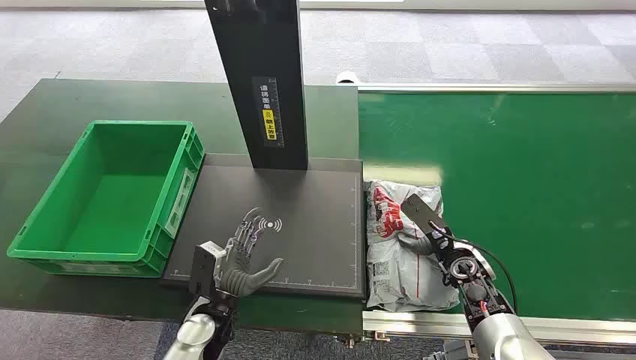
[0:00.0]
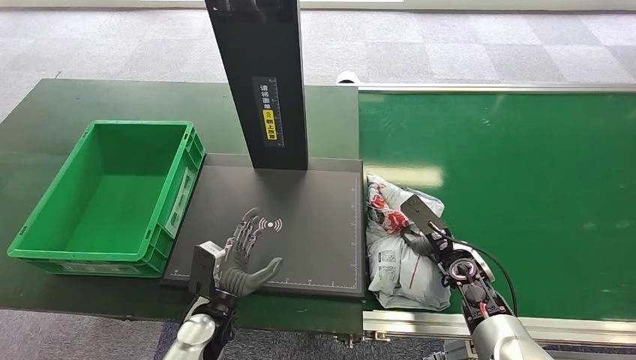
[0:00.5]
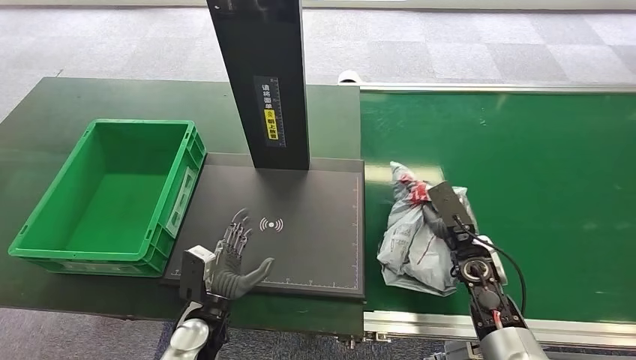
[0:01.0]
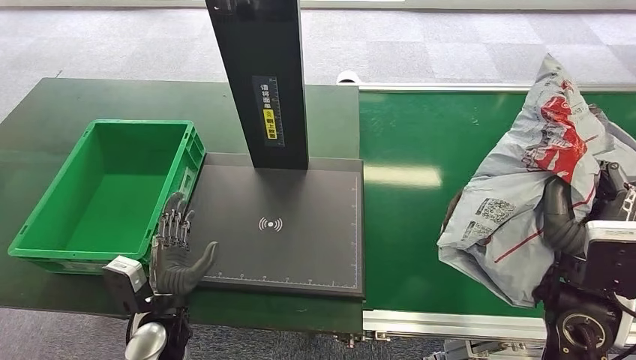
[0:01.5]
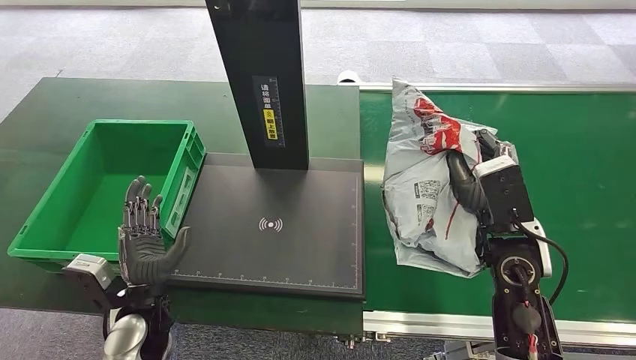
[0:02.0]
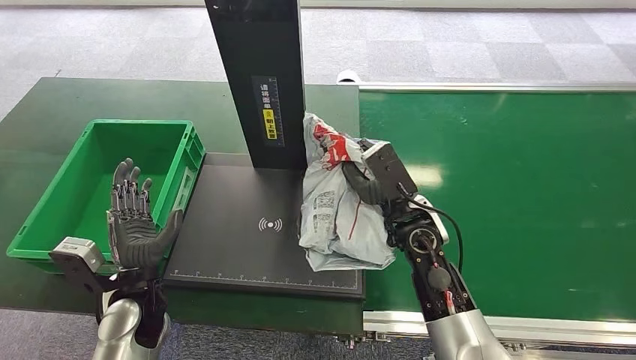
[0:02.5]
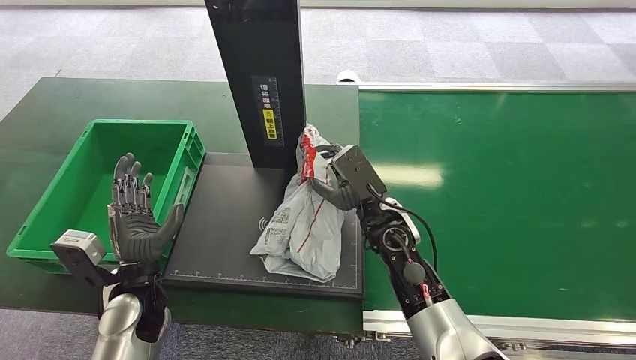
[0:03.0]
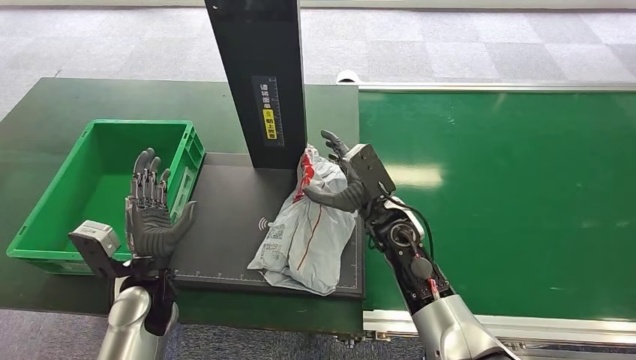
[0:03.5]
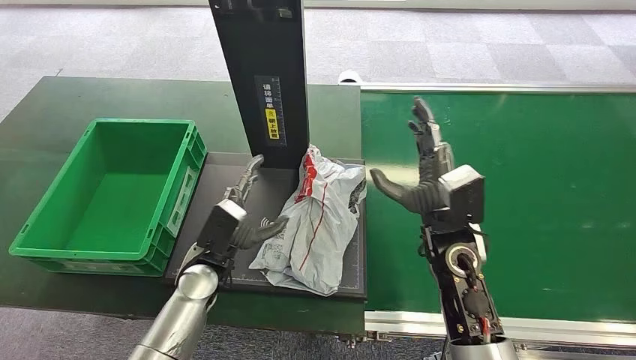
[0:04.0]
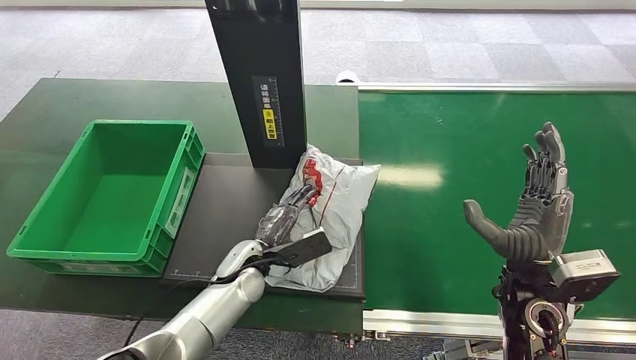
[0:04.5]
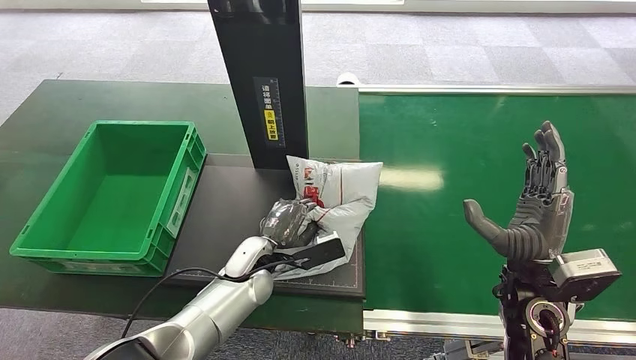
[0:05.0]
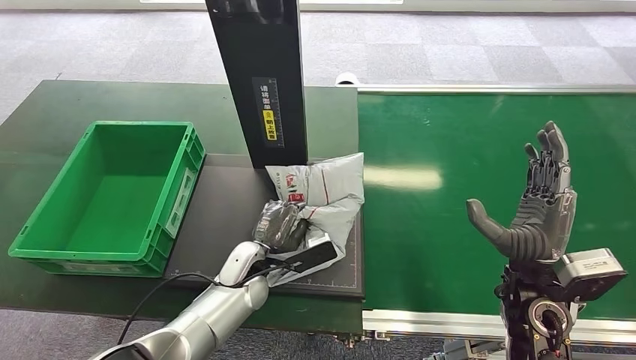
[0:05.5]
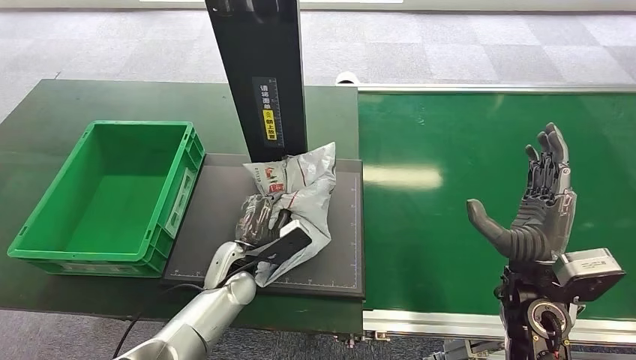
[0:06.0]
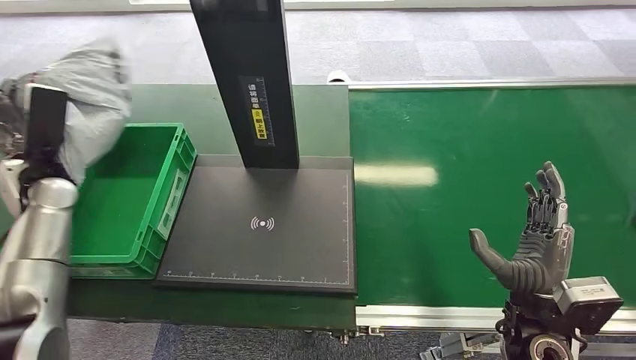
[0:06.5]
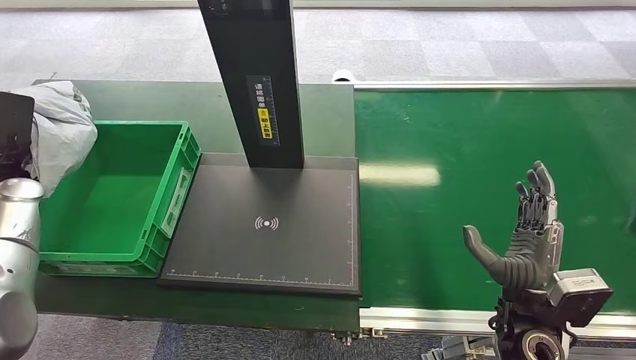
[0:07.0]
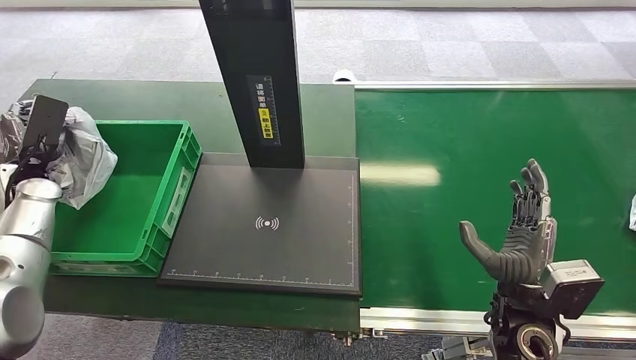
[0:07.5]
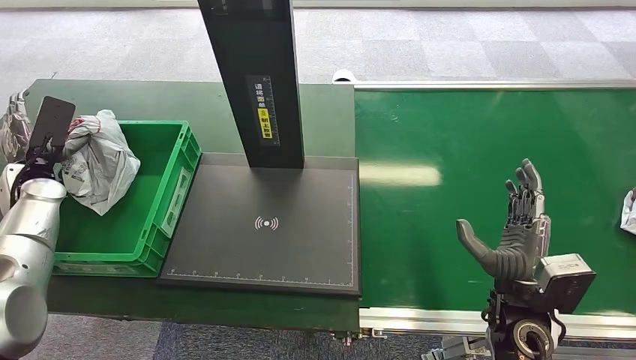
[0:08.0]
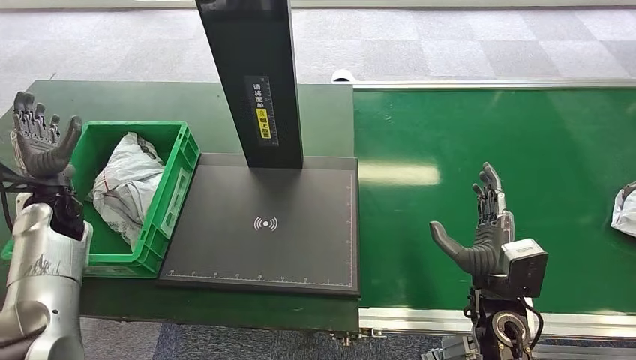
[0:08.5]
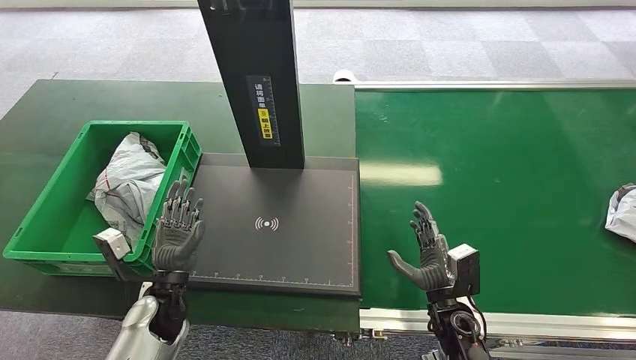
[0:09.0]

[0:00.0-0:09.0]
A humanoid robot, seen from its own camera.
Step, 0:00.0 to 0:02.0: Pick up the package from the conveyor belt.
Step, 0:02.5 to 0:04.5: Place the package onto the inbound machine.
Step, 0:05.0 to 0:06.5: Pick up the package from the inbound machine.
Step, 0:07.0 to 0:09.0: Place the package into the parcel locker.
0:07.0 to 0:09.0: The left hand travels to the right, downward and backward by about 35 cm. The right hand travels downward by approximately 10 cm.
